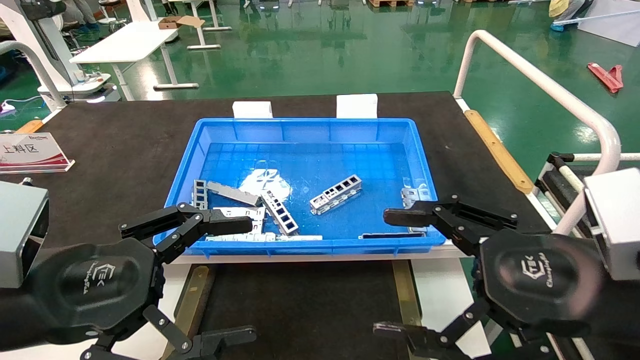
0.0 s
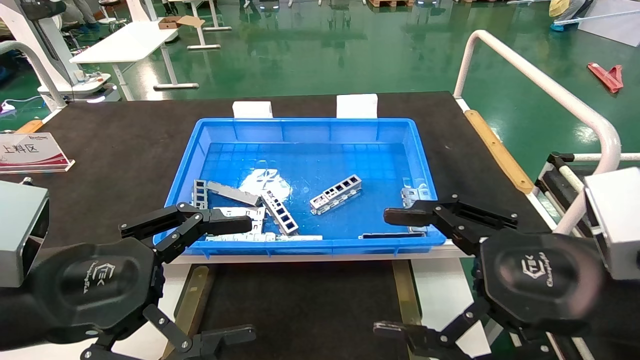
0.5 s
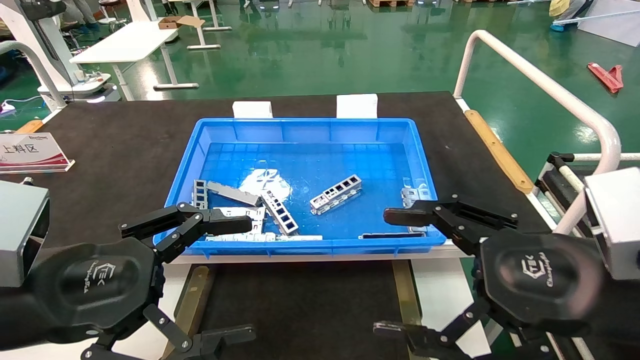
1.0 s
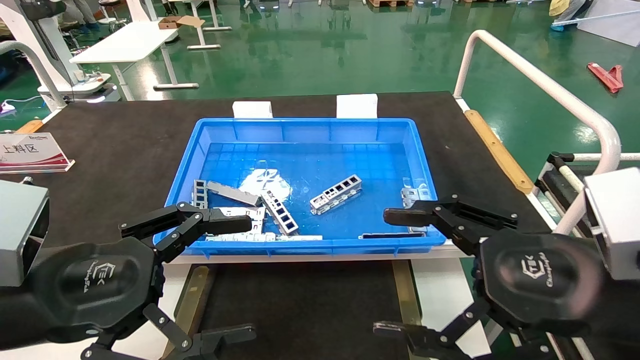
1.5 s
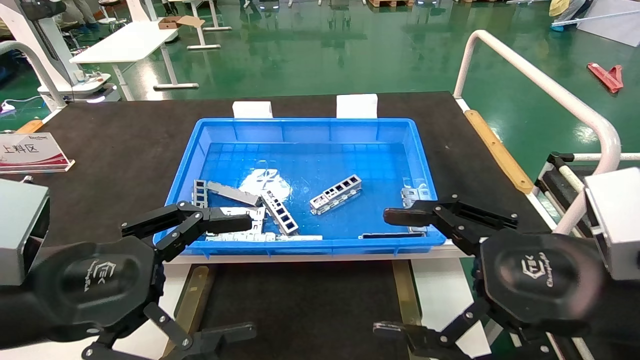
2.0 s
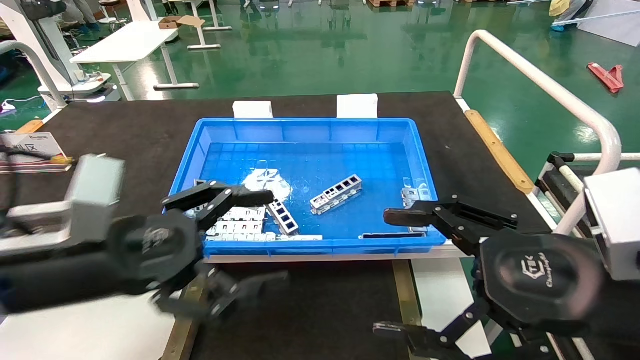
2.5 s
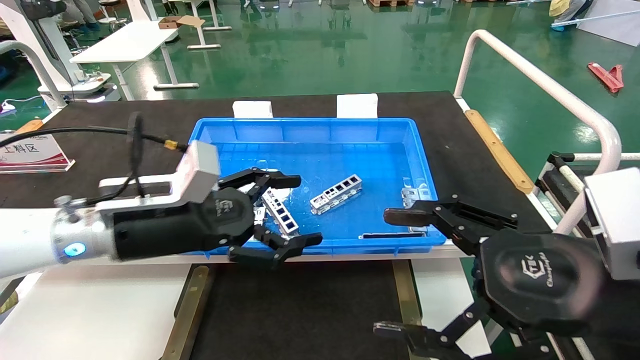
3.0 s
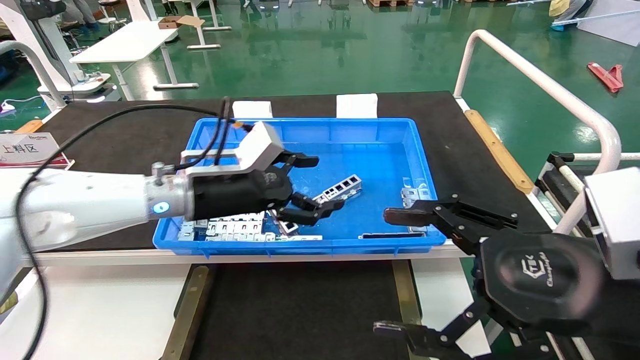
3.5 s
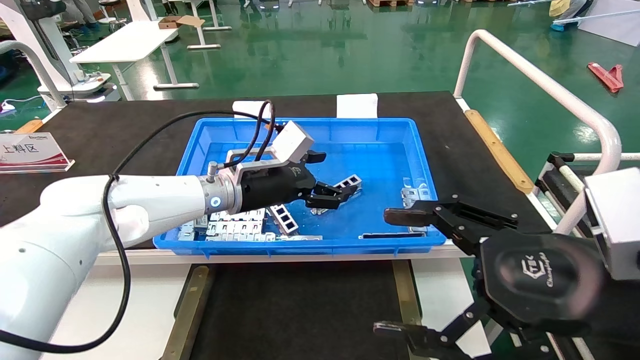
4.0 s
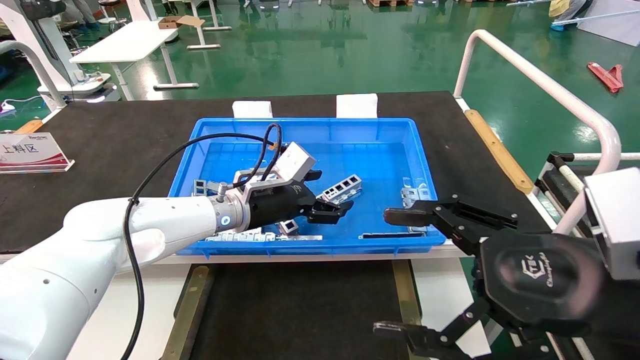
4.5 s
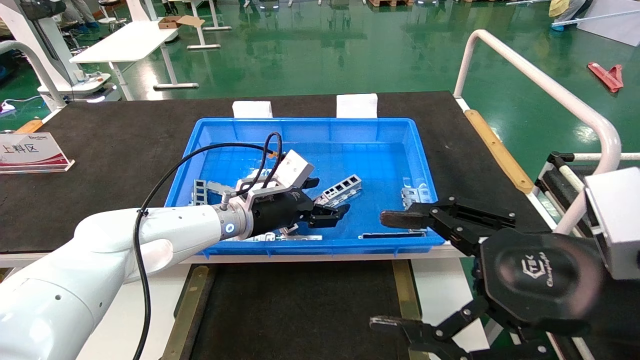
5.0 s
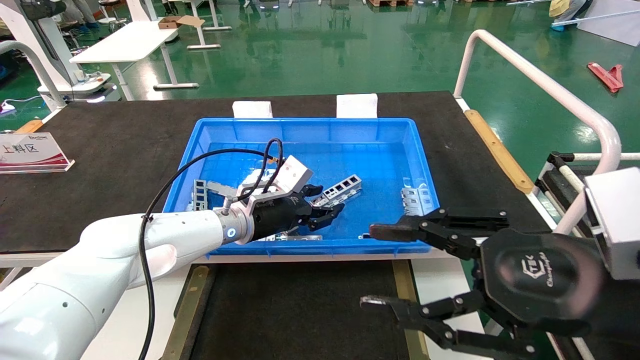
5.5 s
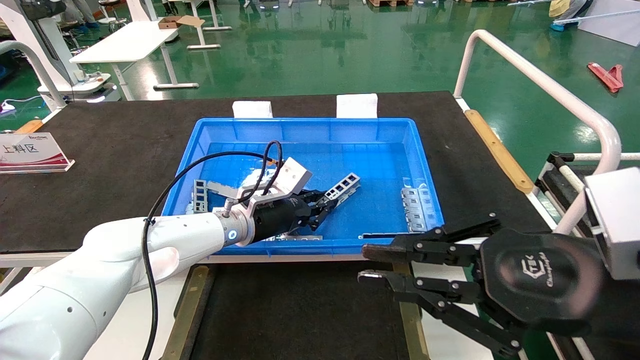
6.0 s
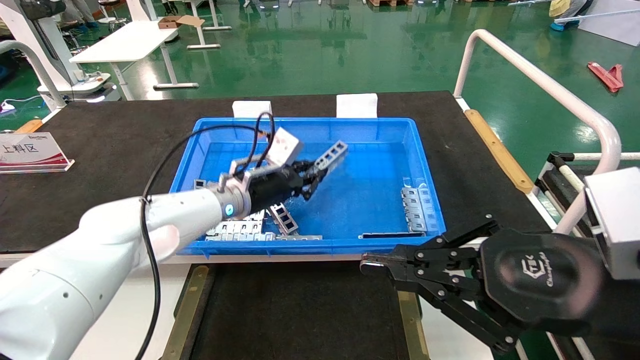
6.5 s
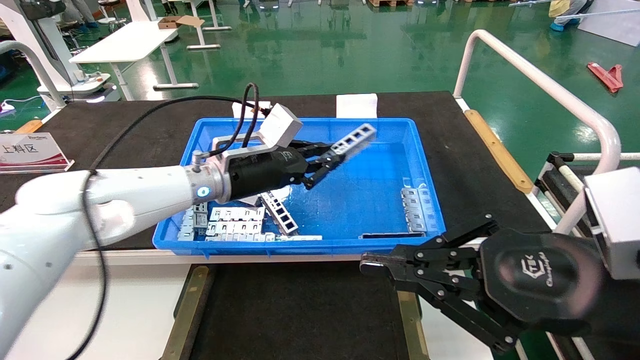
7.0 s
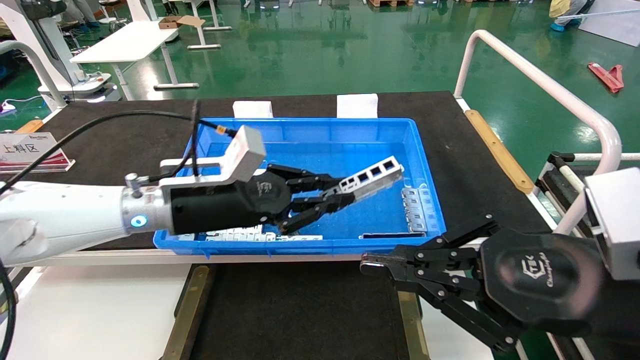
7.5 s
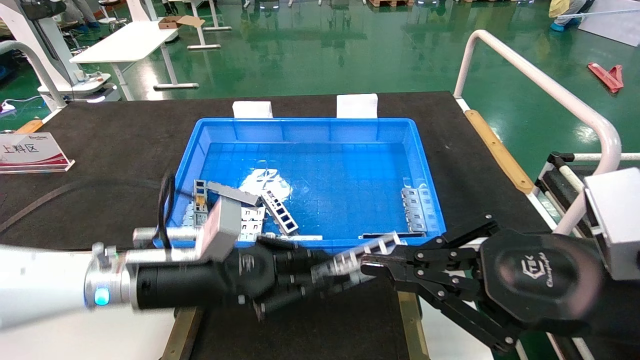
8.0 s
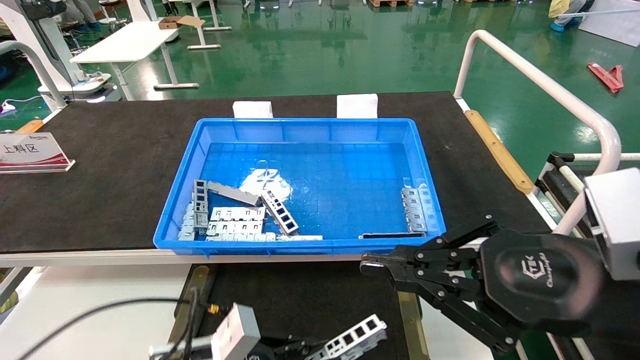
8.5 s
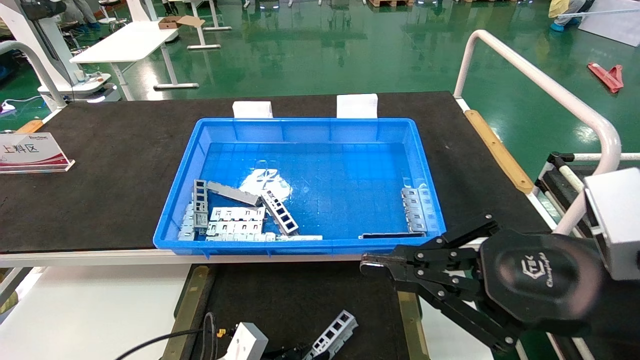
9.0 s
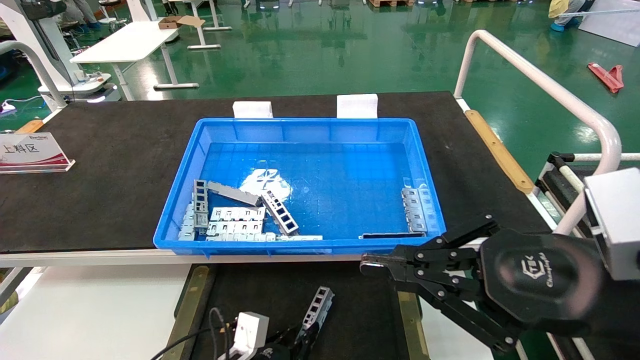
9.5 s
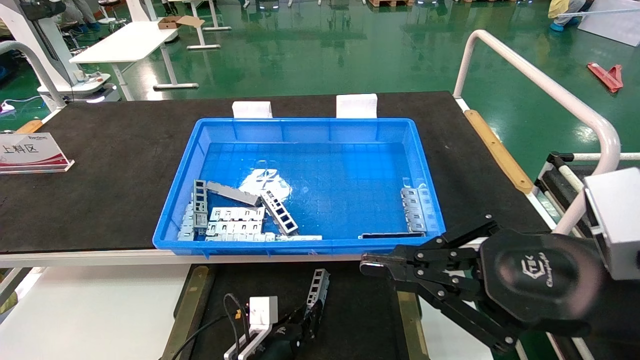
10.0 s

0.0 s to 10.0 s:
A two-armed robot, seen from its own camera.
Task of the whole recording: Grasp the part with one hand and place it on the black container.
Step, 2.5 to 6.0 s: Pick up the front USB bracket from the feeding area.
0.0 to 2.0 s: Neither gripper changes place.
2.0 to 4.0 s: The left gripper heads forward and to the right, covering roughly 30 cm.
4.0 to 6.0 s: The left gripper goes approximately 5 cm downward, and closes its fingers, while the right gripper closes up.
6.0 to 8.0 s: The left gripper shifts roughly 20 cm backward and to the left.
8.0 to 10.0 s: The left gripper is displaced downward by roughly 25 cm.

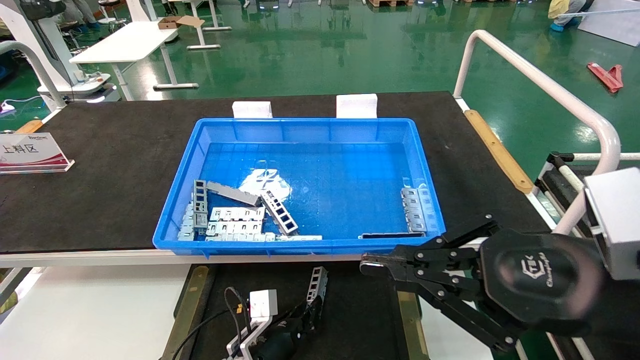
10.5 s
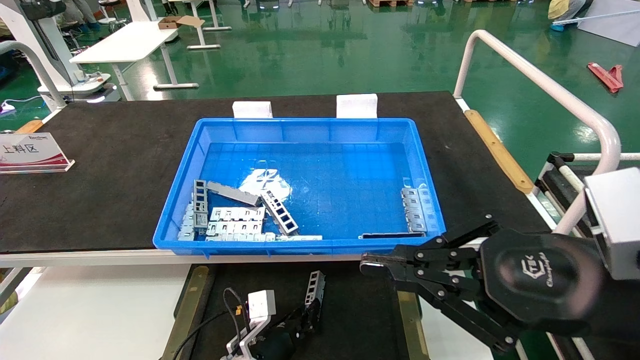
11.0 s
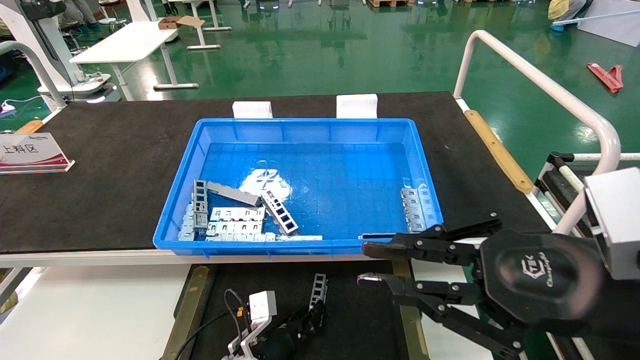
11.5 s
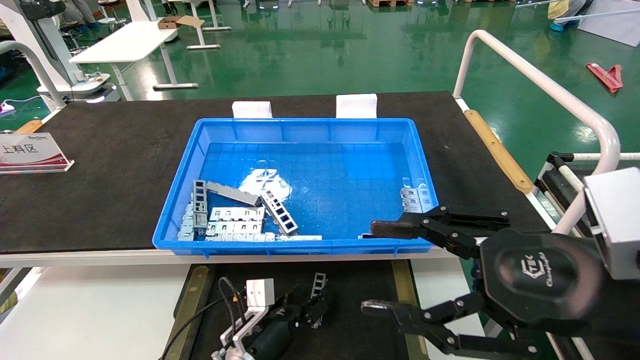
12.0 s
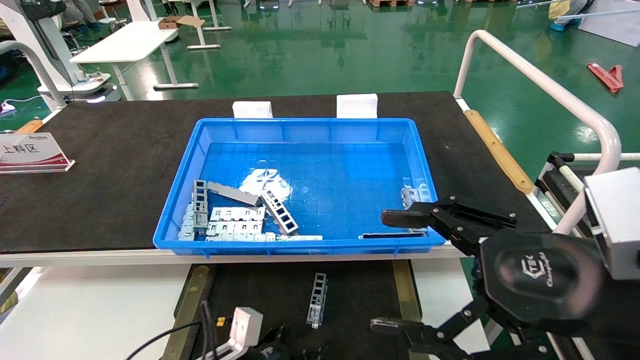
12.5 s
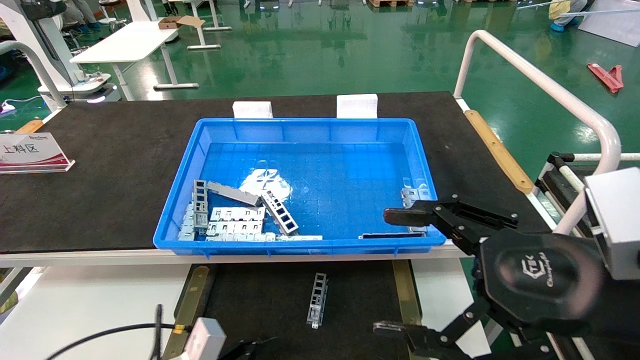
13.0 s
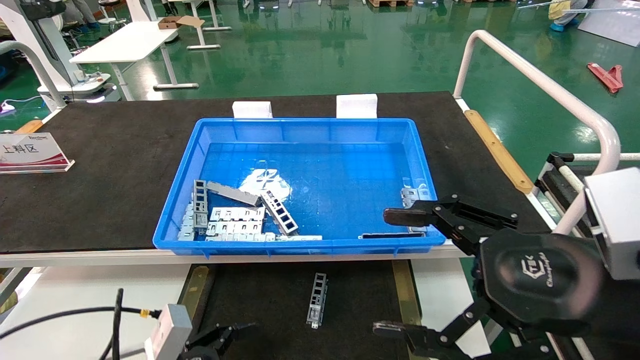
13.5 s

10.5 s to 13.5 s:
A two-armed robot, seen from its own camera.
Task of the whole recording: Grasp the part with one hand and place it on the black container.
10.5 to 12.0 s: The right gripper opens. The left gripper opens up.
12.0 to 13.5 s: The left gripper heads backward, to the left and upward, covering some 20 cm, and opens up, while the right gripper opens its fingers.

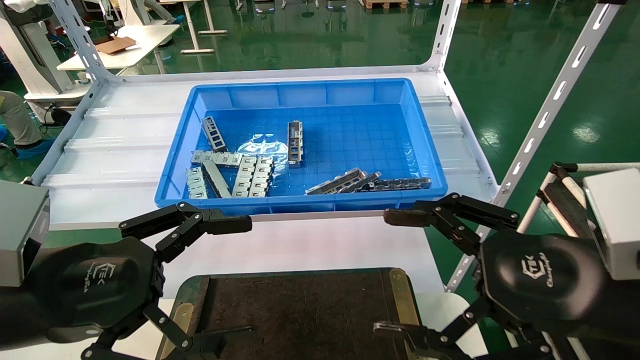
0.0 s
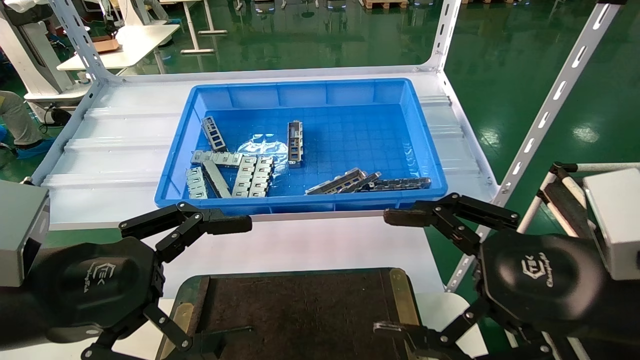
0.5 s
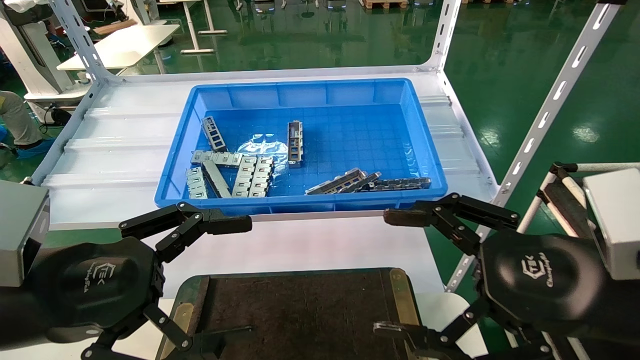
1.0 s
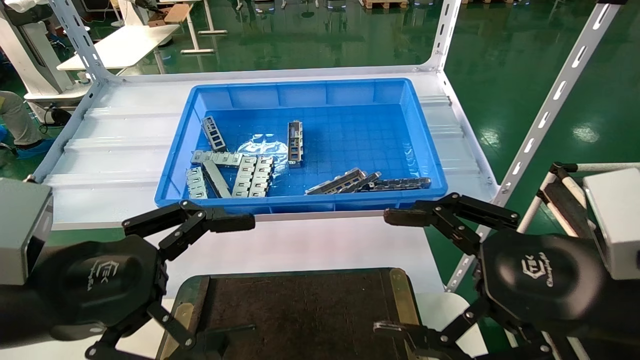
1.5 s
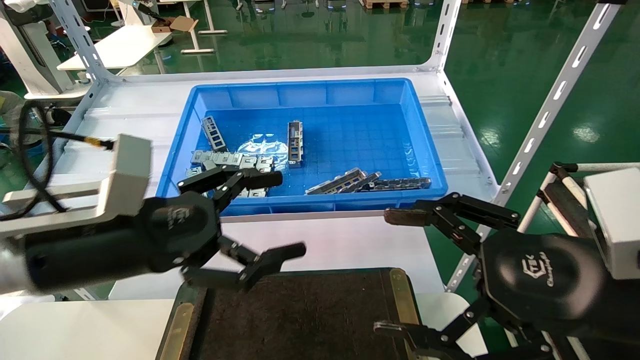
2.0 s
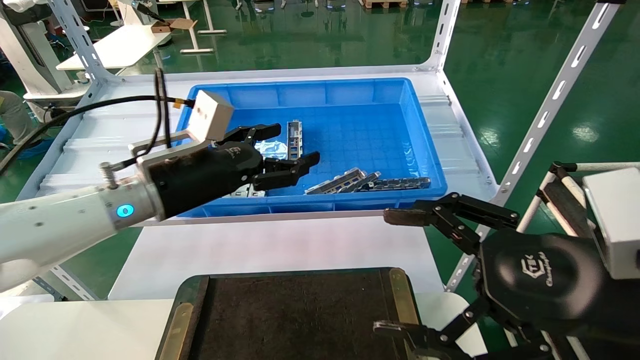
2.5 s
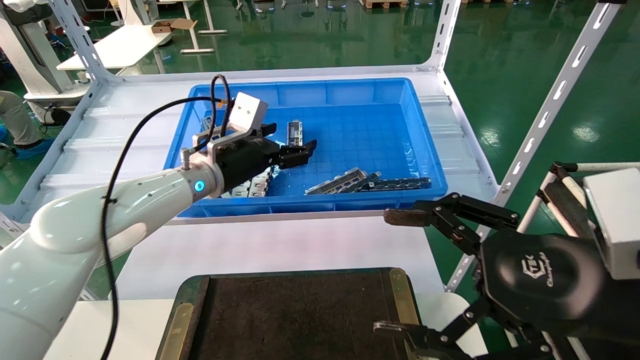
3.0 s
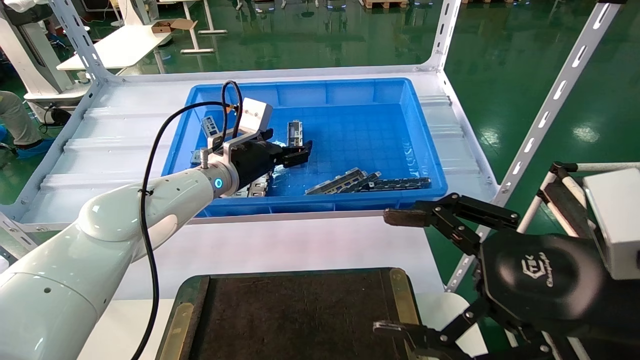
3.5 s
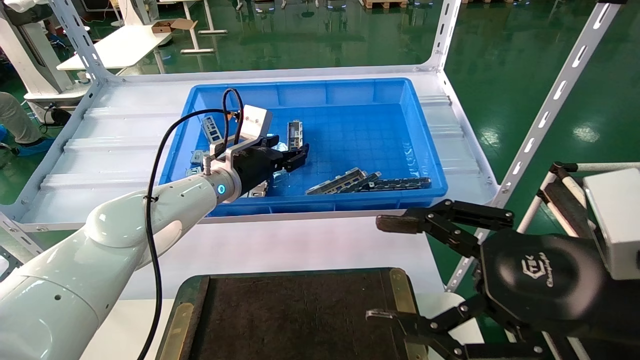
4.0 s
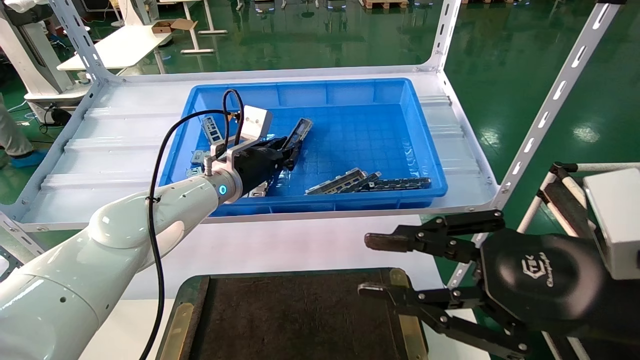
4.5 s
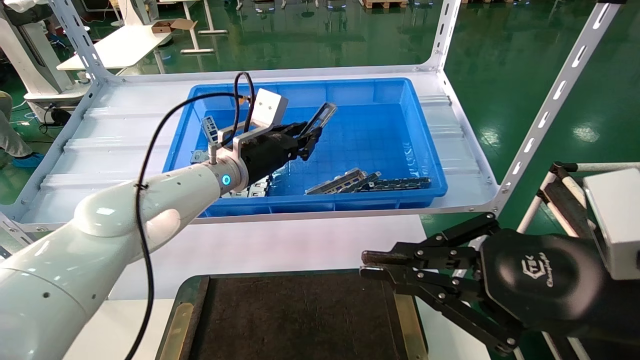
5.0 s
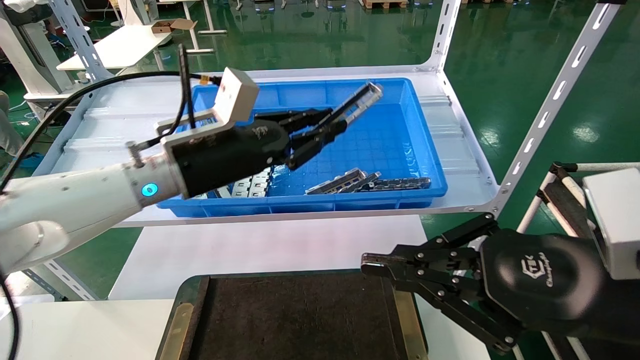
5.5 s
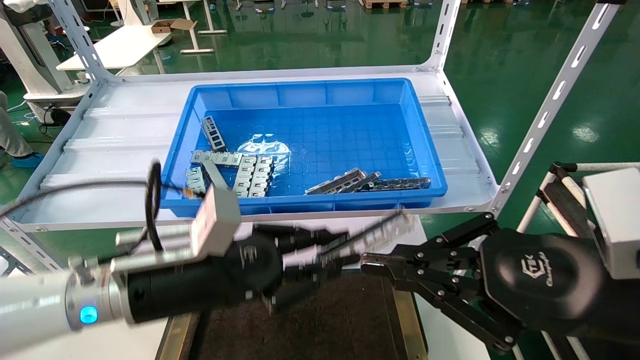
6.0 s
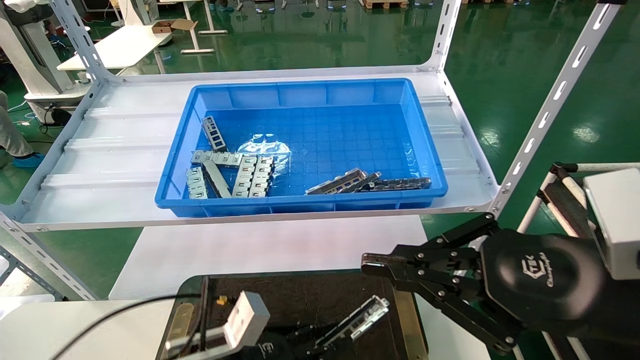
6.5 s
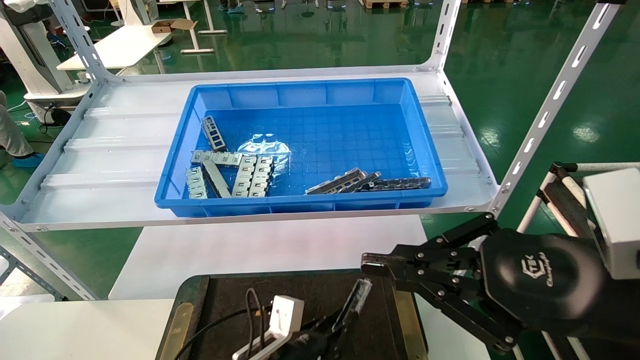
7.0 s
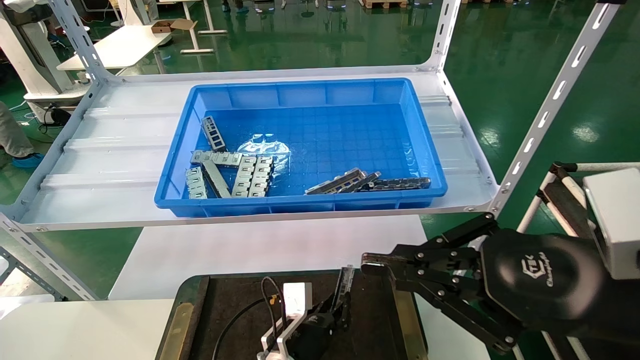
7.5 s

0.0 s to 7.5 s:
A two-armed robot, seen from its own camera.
Task of the whole recording: Grasp the part with one hand and place it on the black container.
Step, 2.0 to 4.0 s: Pick up the front USB bracket from the feeding area.
0.0 to 2.0 s: The left gripper heads forward, covering about 5 cm.
2.0 to 4.0 s: The left gripper heads forward, covering approximately 25 cm.
4.0 to 5.5 s: The left gripper moves backward, approximately 10 cm, and closes up. Meanwhile the right gripper closes its fingers.
5.5 to 7.5 s: The left gripper moves downward, about 35 cm.
